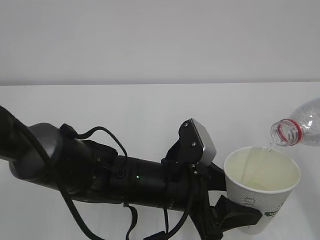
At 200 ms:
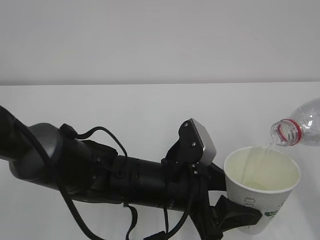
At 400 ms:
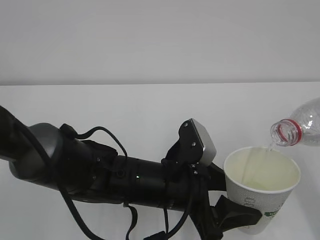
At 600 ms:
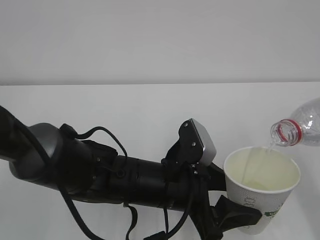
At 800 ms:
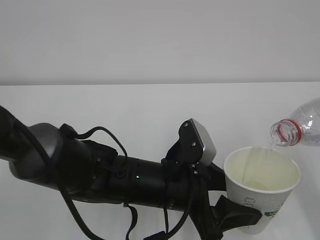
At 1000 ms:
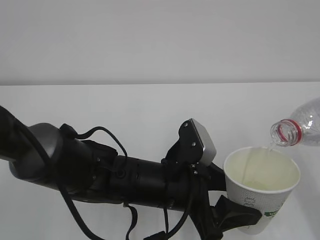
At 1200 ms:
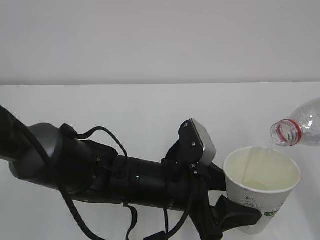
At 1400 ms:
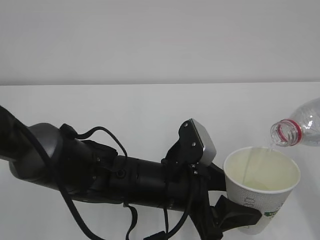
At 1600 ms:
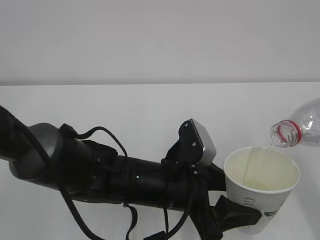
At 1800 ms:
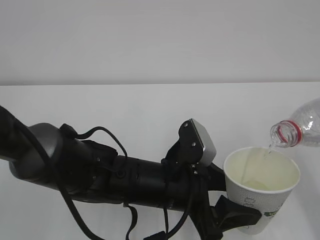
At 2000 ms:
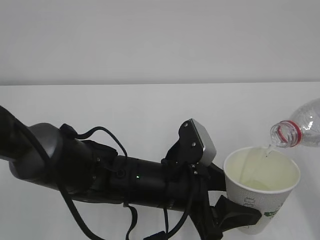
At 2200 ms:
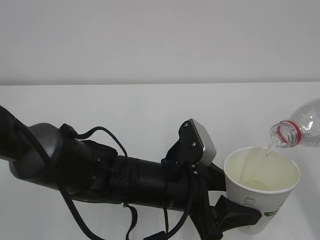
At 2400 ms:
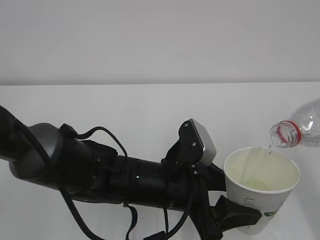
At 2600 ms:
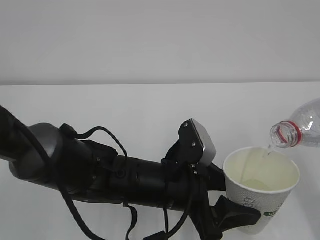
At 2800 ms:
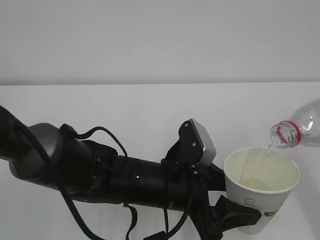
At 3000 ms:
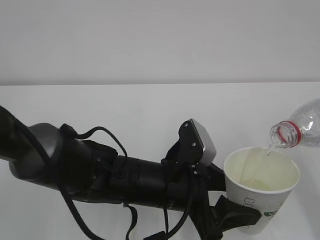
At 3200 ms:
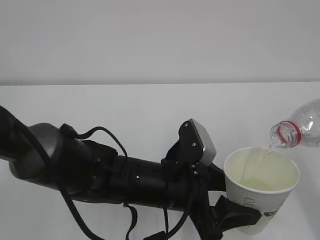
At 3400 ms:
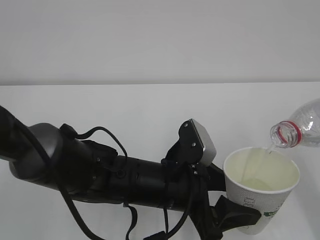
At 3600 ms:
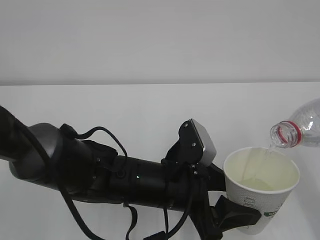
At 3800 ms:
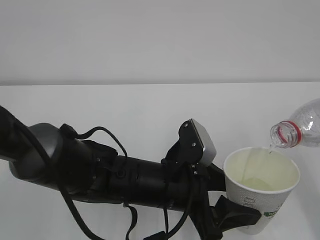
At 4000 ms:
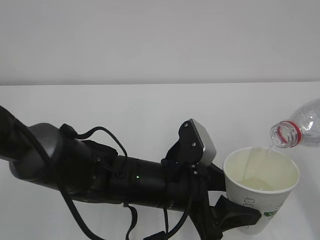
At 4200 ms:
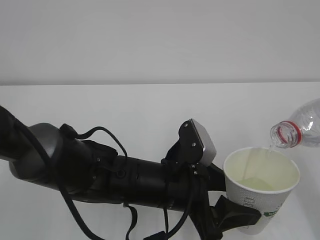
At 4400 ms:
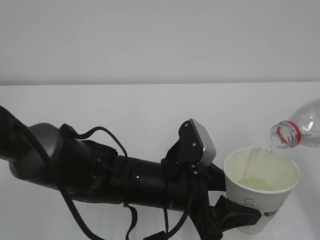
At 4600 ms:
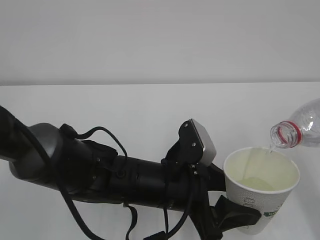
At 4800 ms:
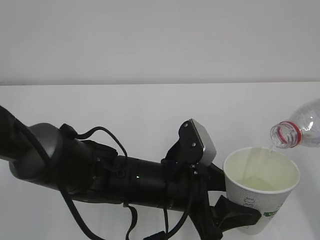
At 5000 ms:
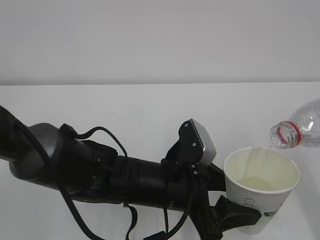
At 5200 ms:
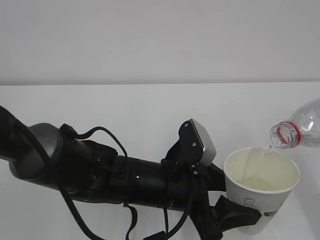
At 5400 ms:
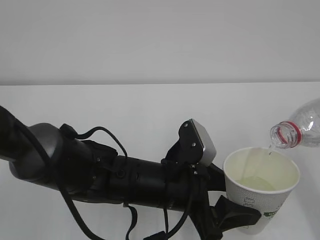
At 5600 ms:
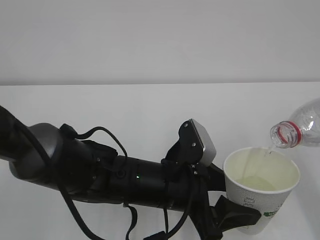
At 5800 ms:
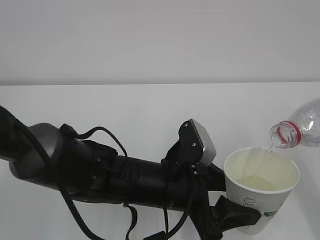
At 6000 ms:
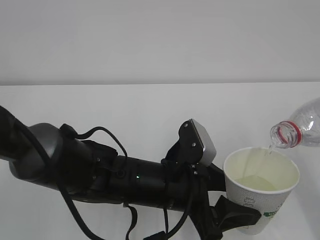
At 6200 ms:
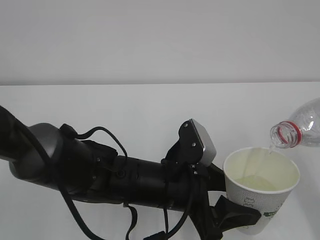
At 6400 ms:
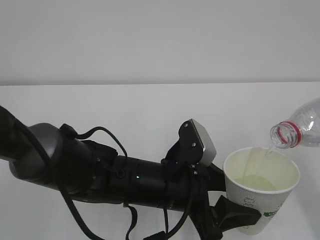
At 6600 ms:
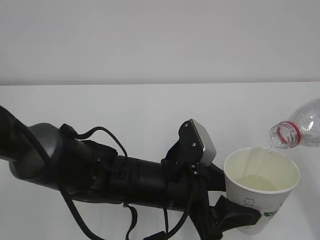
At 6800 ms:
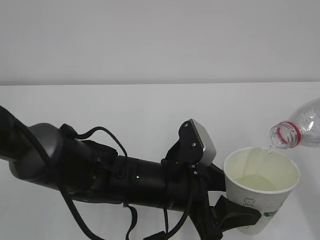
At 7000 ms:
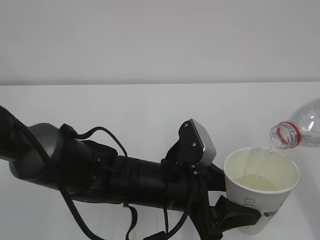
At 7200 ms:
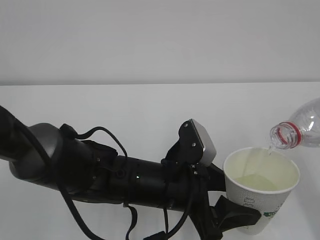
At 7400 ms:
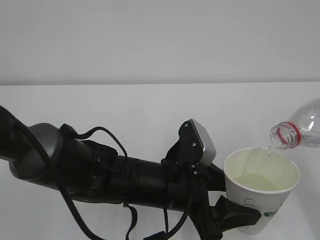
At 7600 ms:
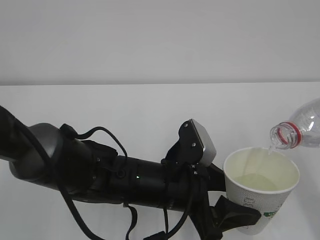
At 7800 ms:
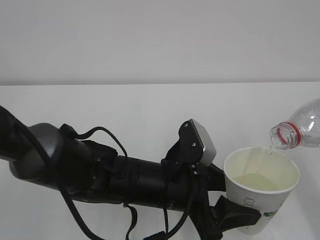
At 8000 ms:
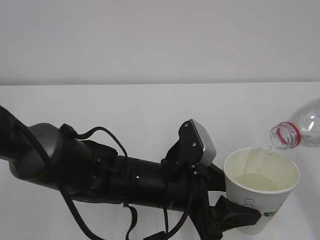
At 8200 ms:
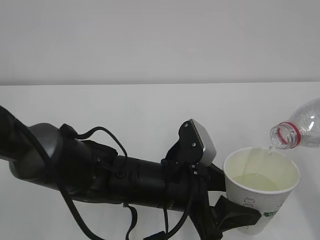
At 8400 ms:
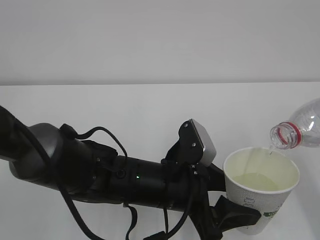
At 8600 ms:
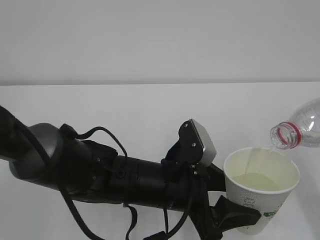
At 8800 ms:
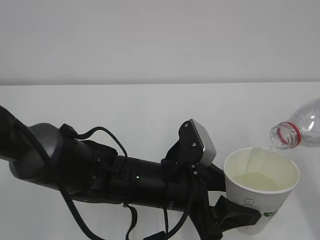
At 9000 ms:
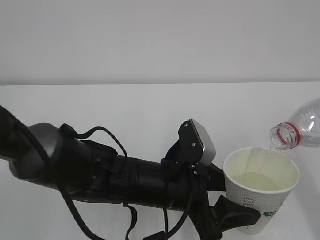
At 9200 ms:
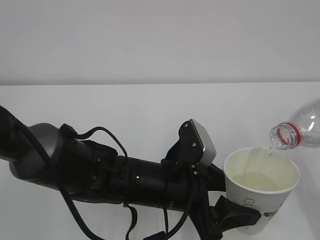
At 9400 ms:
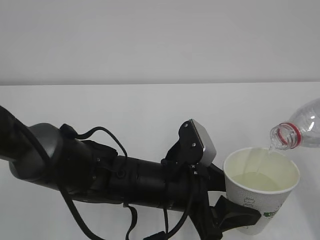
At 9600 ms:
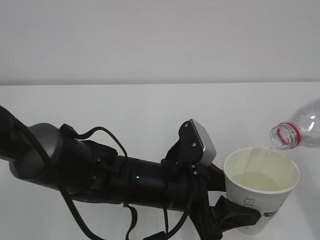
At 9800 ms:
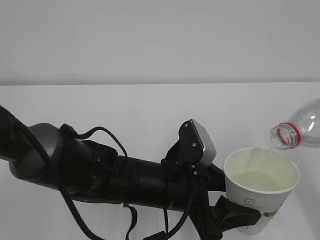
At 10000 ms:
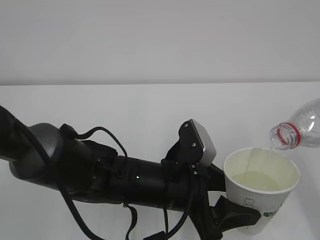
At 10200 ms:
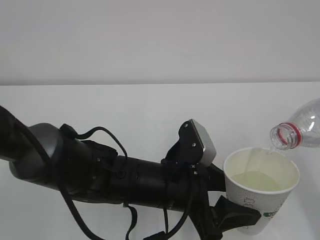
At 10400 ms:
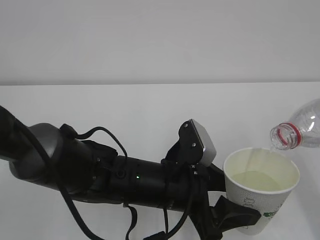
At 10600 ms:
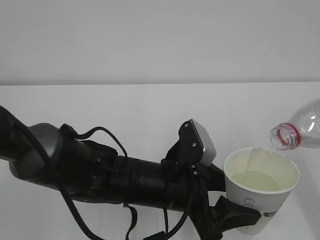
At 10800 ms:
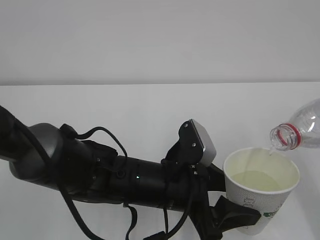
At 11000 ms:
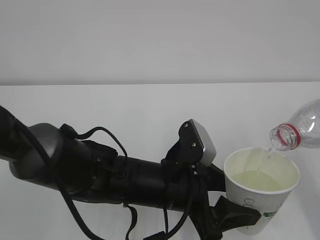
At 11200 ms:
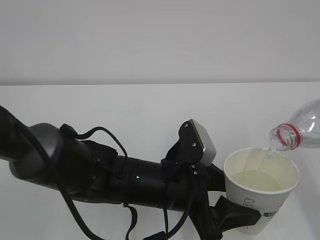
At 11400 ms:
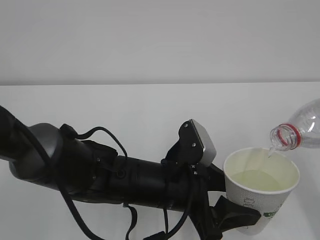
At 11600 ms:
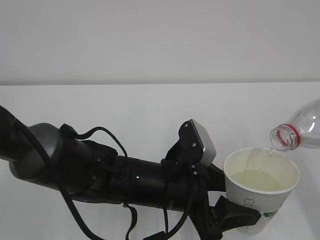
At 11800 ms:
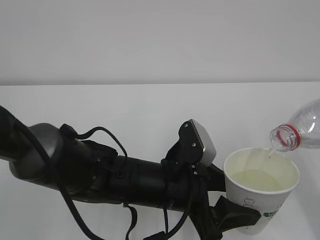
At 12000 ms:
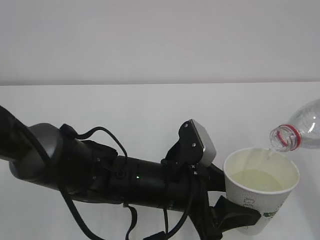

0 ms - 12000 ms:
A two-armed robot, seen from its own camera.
0 ms - 12000 ms: Neither gripper changes place.

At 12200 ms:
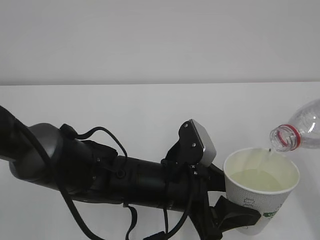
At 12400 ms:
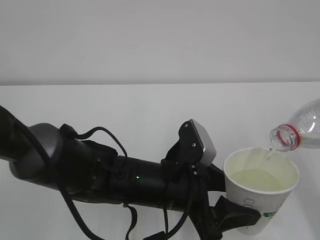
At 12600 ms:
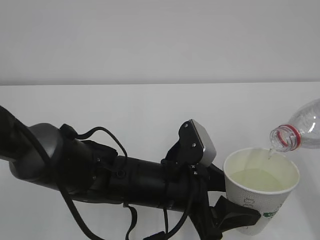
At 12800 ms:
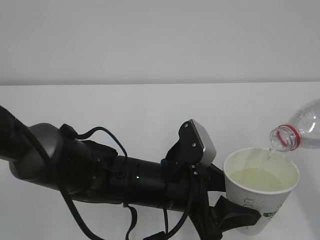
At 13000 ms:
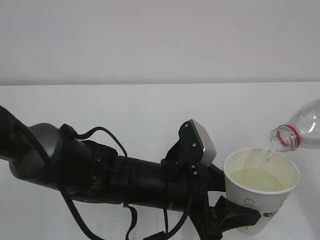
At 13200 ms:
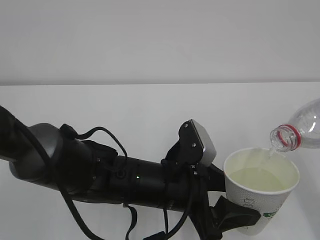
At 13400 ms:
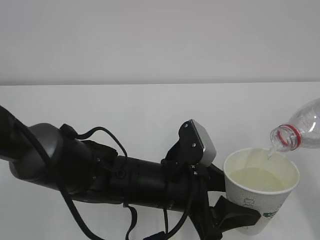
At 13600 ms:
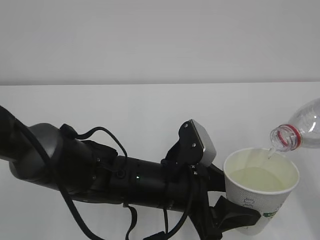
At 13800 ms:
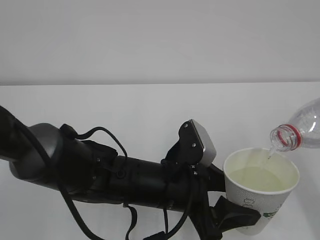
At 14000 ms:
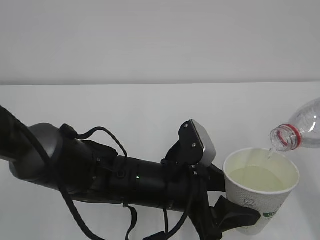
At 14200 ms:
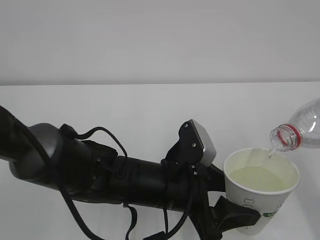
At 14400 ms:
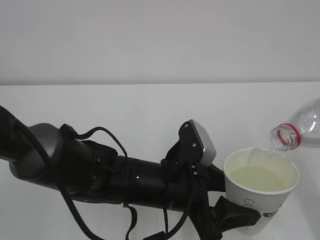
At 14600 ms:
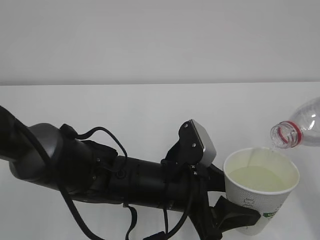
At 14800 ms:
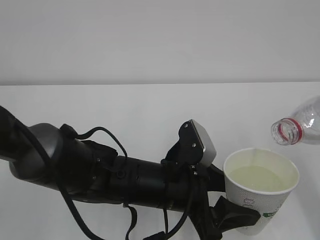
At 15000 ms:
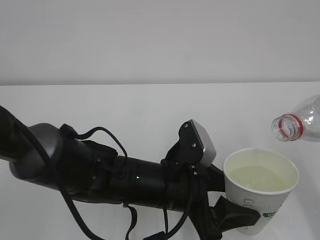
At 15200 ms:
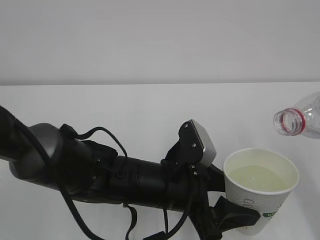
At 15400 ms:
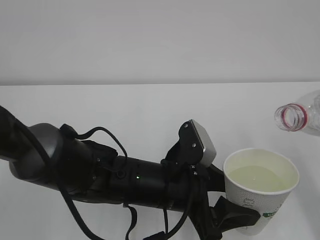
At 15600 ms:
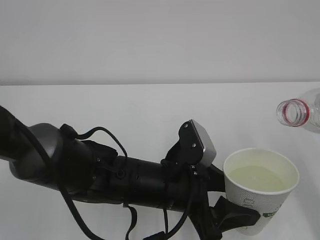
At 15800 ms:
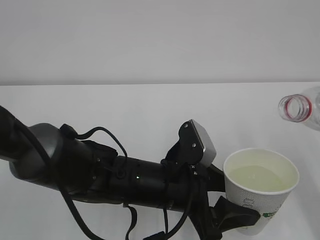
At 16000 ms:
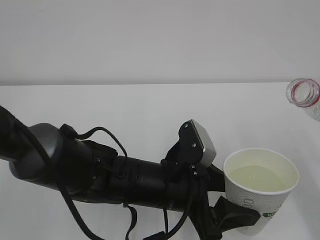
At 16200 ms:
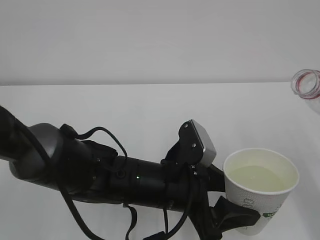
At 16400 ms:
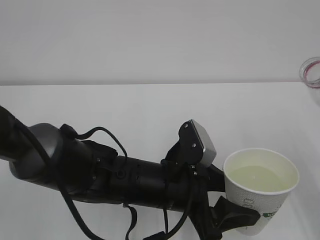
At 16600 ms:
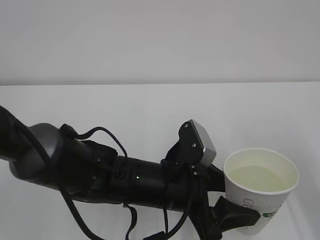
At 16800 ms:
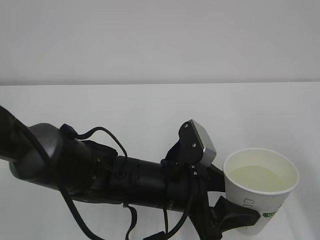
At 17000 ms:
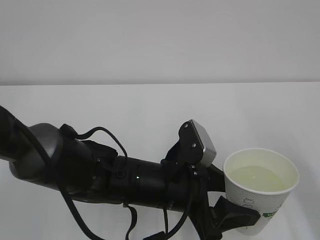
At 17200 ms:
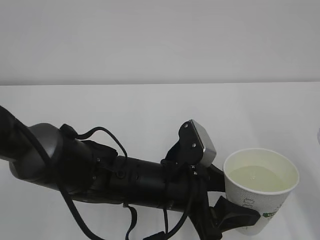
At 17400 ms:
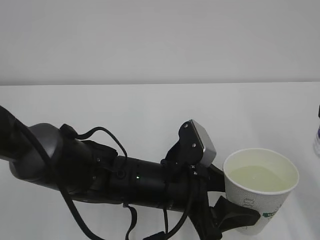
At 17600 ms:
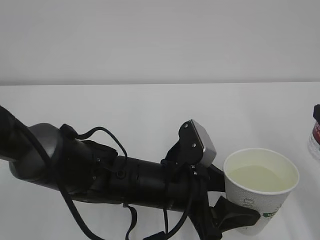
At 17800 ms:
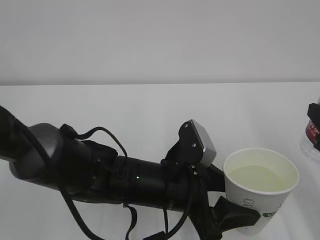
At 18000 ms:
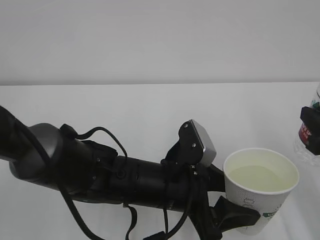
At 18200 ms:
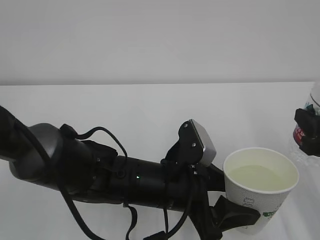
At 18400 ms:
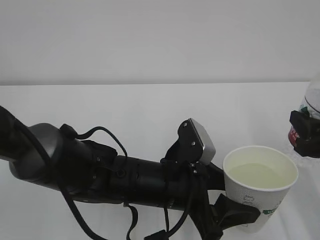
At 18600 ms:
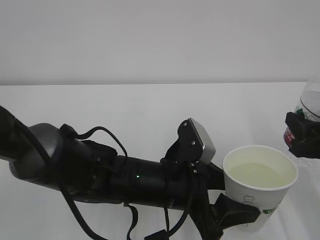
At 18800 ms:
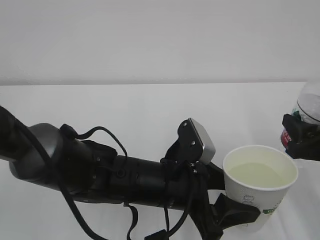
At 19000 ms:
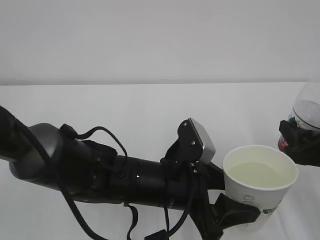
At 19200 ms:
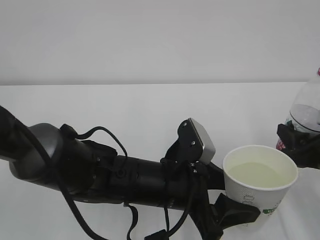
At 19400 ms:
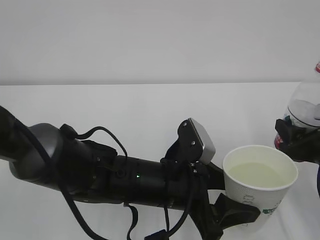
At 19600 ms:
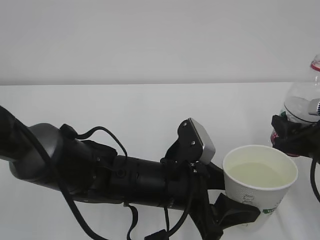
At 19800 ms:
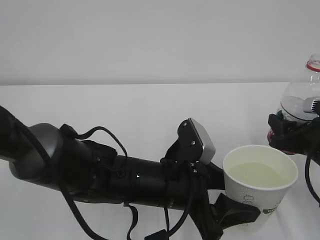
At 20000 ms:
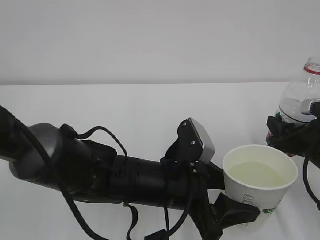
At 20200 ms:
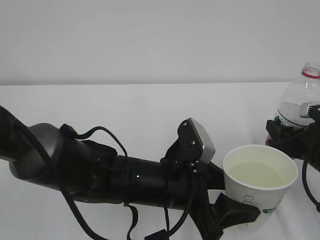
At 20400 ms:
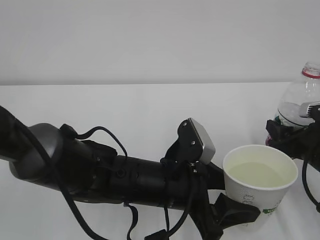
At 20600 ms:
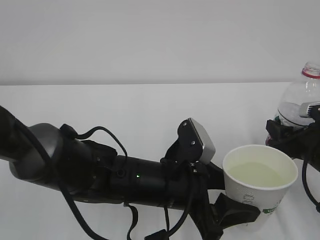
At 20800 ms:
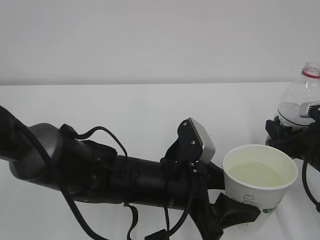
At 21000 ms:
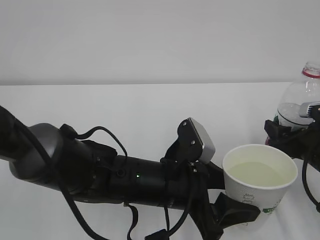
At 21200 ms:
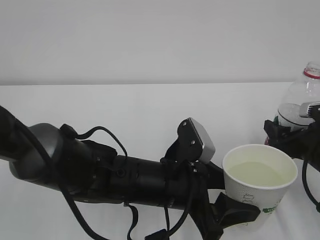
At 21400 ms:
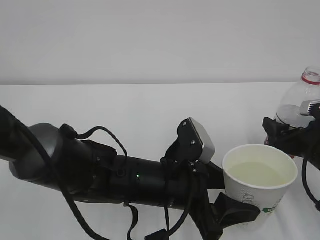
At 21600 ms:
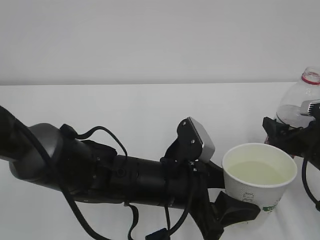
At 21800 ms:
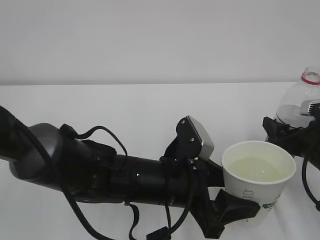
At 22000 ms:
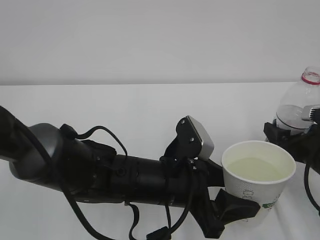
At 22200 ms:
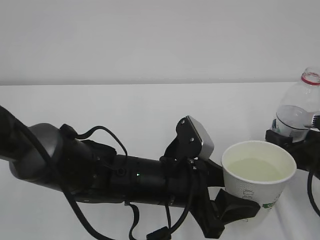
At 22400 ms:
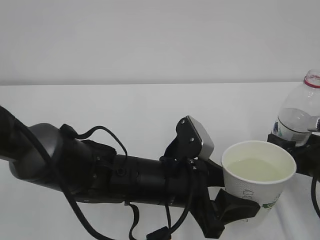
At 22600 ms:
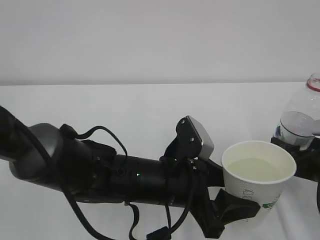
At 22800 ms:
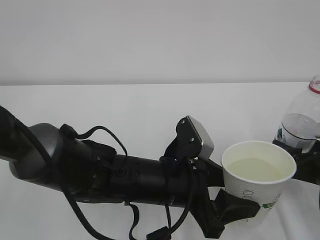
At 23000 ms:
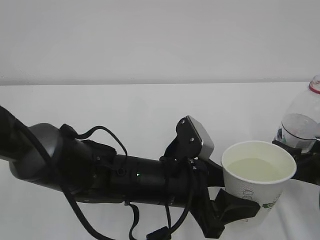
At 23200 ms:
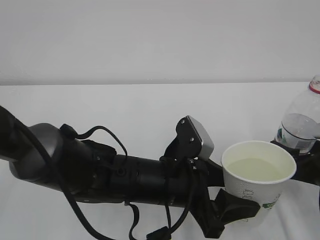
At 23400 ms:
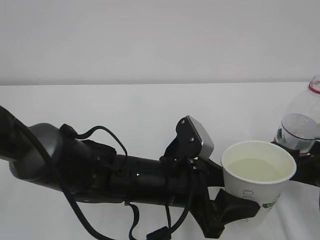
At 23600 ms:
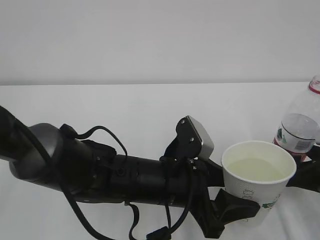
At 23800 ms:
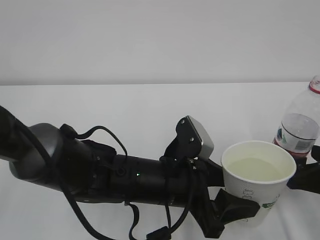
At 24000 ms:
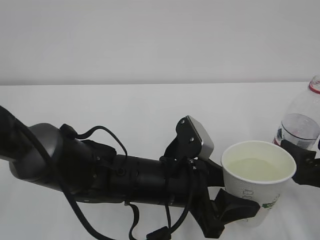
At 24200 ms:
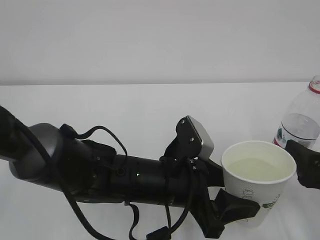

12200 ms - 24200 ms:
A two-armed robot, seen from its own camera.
12200 ms - 13800 ms: Both grippers stay put.
13800 ms - 15200 ms: The grippers stay close to where they were, moving slightly.
16600 ms - 18200 ms: The right gripper is displaced downward by roughly 5 cm.
18200 ms - 19800 ms: The right gripper travels downward and forward by about 10 cm.
19800 ms - 21200 ms: The right gripper opens.
21200 ms - 22600 ms: There are only small adjustments of the grippers.
22600 ms - 24200 ms: The right gripper moves approximately 5 cm.
